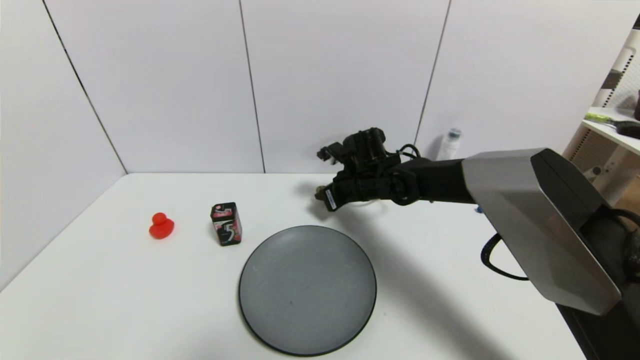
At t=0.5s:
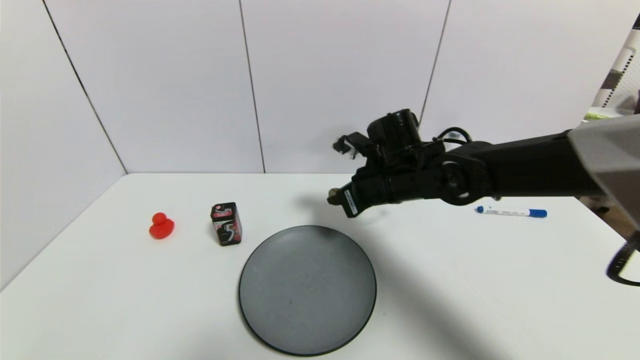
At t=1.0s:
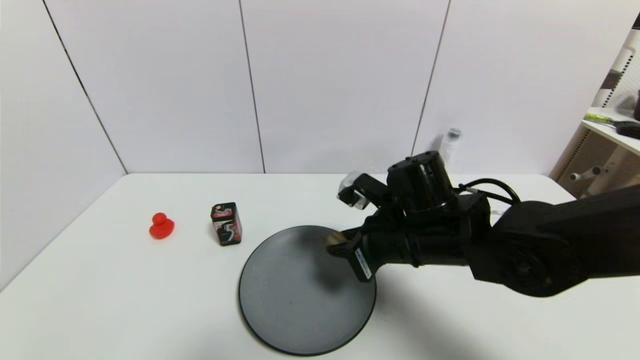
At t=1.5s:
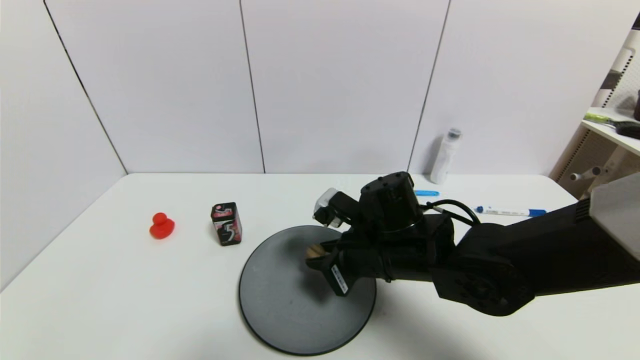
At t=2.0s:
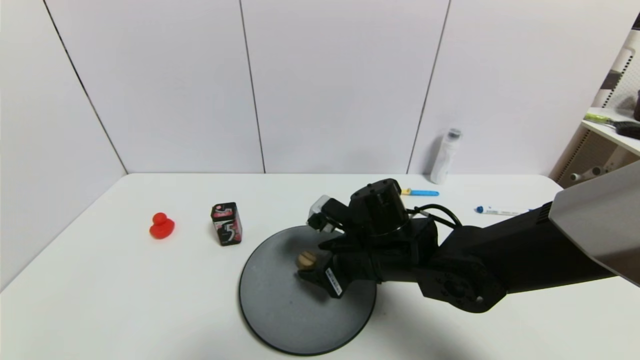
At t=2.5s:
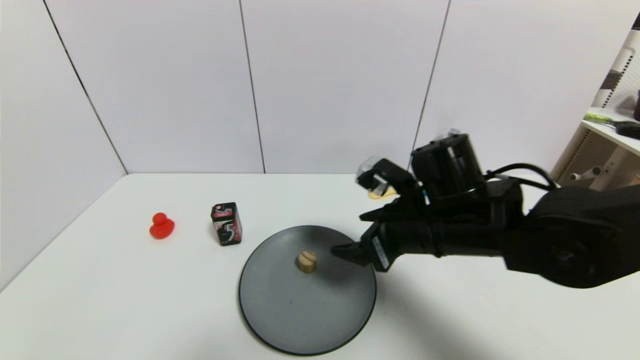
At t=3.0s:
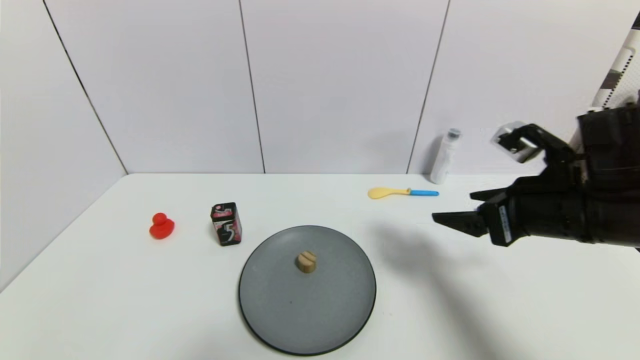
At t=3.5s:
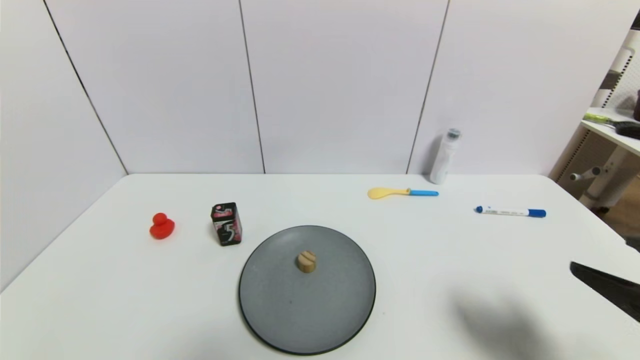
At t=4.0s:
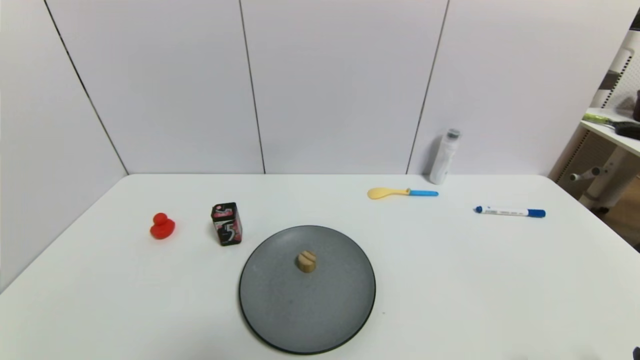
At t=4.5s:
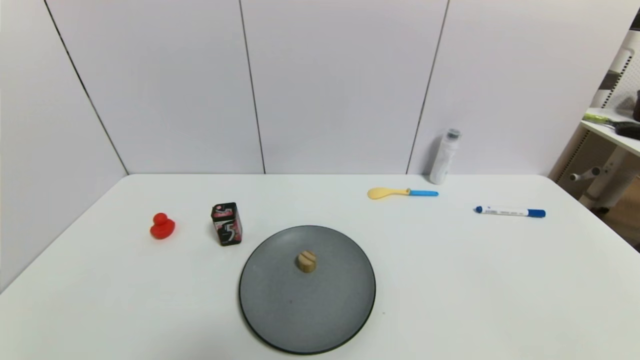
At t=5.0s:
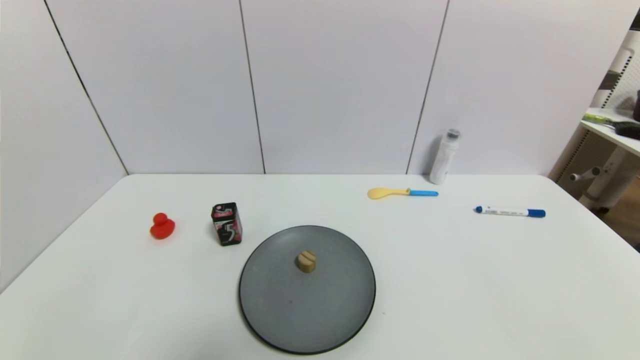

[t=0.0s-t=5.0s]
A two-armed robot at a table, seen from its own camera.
Task of the whole recording: use a gripper to pick the target object and place on the gray plate.
Step, t=0.0s to t=2.0s: Place the round wooden block on the gray plate with the right gripper.
t=0.0s to t=2.5s: The right gripper travels backward by some 15 cm, and opens its fingers.
t=2.5s to t=5.0s: The right gripper shifts roughly 35 cm backward and to the right.
